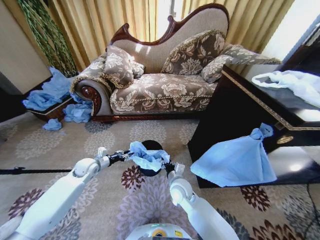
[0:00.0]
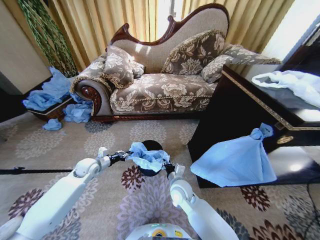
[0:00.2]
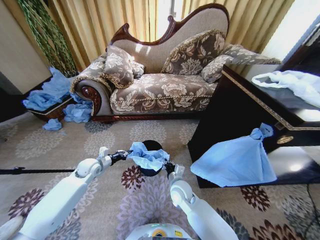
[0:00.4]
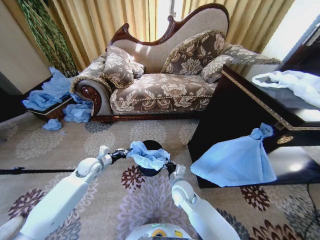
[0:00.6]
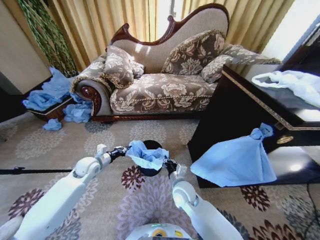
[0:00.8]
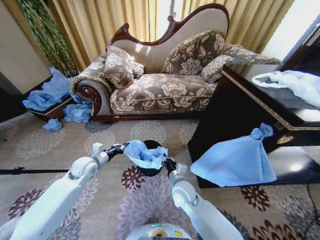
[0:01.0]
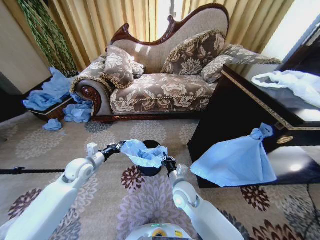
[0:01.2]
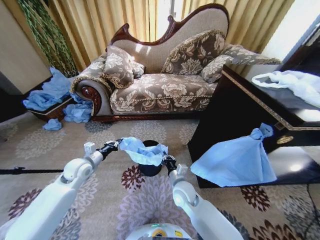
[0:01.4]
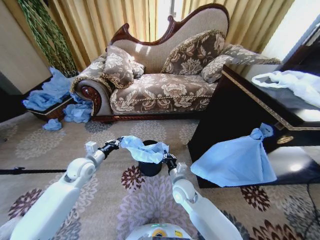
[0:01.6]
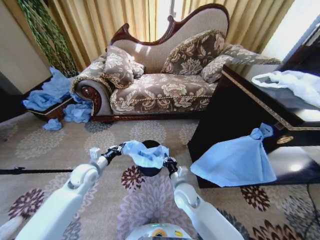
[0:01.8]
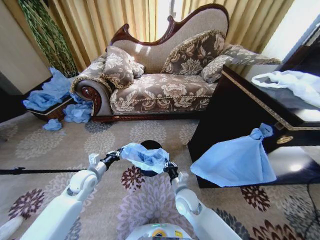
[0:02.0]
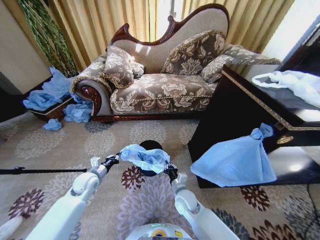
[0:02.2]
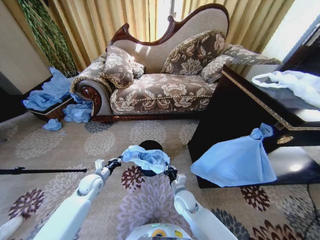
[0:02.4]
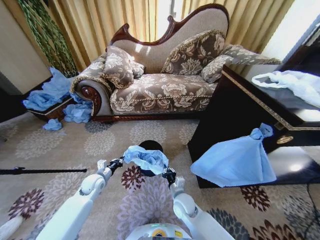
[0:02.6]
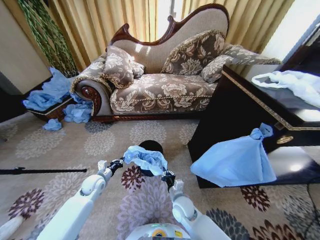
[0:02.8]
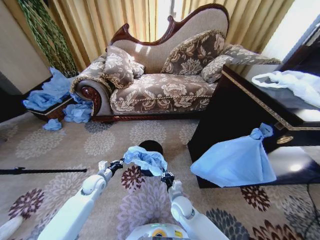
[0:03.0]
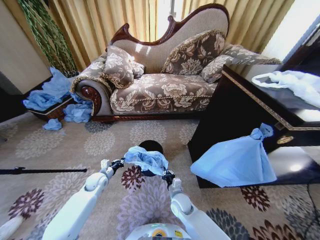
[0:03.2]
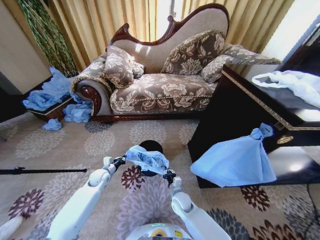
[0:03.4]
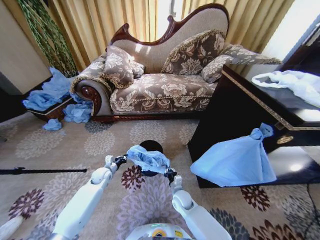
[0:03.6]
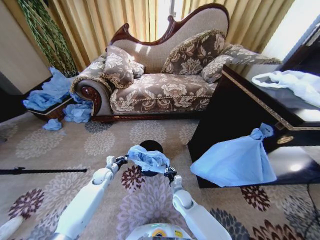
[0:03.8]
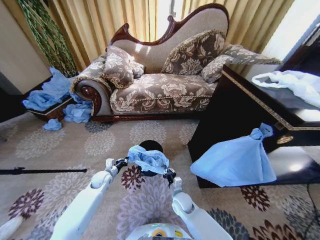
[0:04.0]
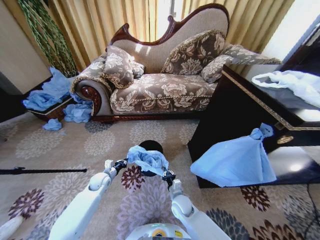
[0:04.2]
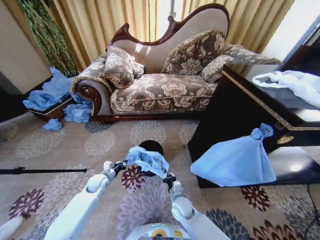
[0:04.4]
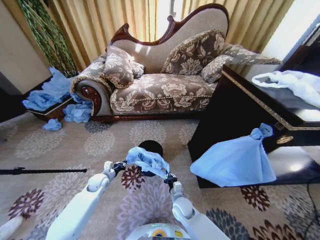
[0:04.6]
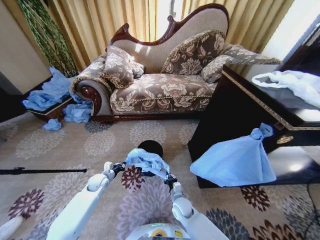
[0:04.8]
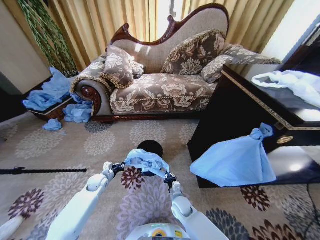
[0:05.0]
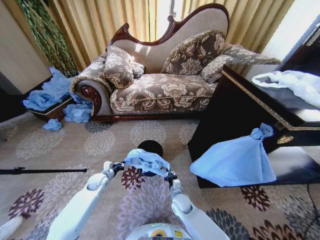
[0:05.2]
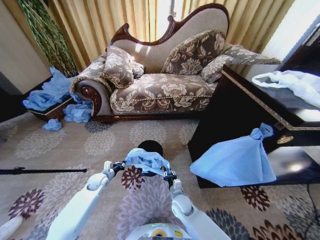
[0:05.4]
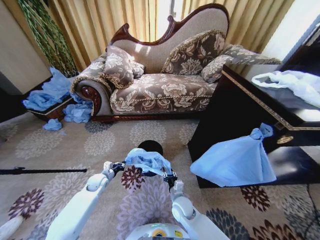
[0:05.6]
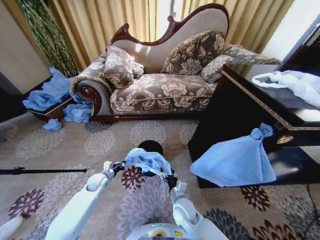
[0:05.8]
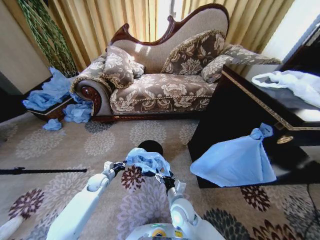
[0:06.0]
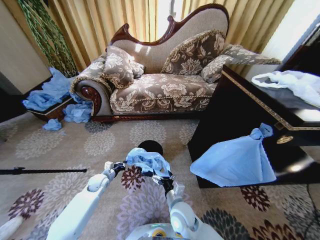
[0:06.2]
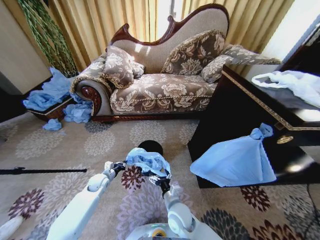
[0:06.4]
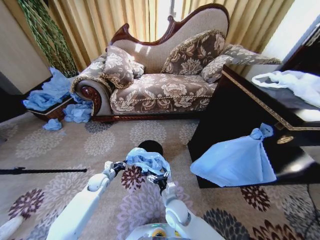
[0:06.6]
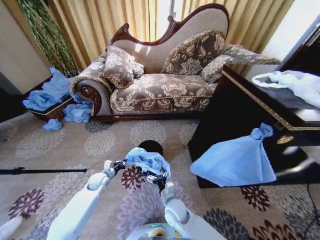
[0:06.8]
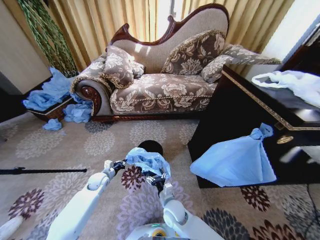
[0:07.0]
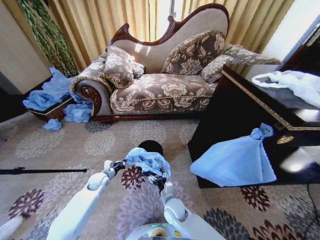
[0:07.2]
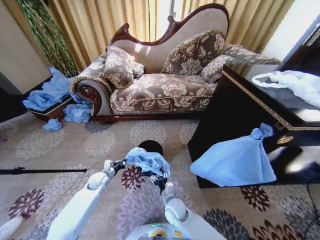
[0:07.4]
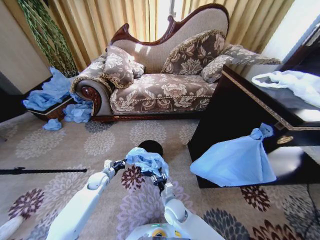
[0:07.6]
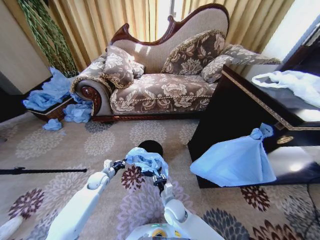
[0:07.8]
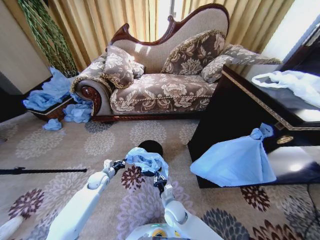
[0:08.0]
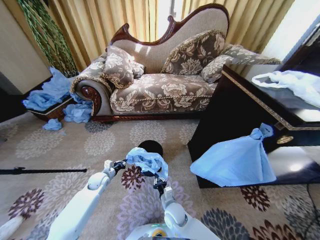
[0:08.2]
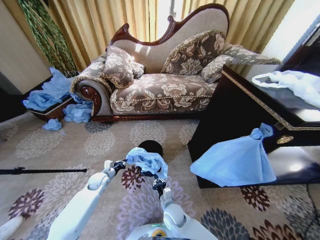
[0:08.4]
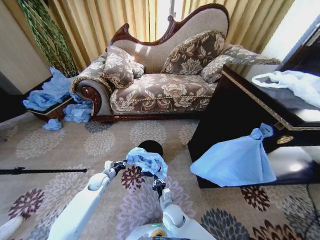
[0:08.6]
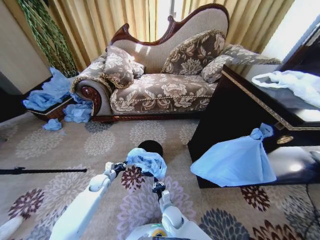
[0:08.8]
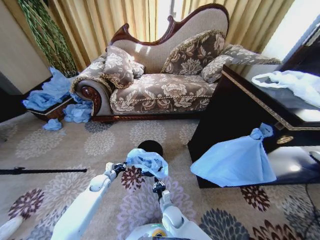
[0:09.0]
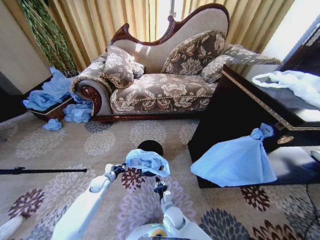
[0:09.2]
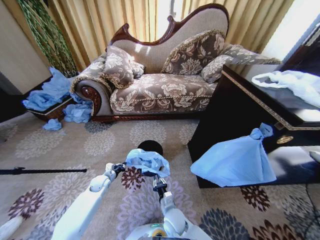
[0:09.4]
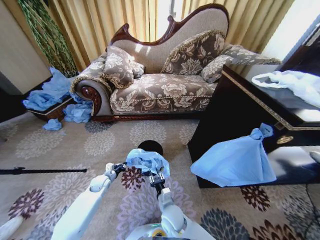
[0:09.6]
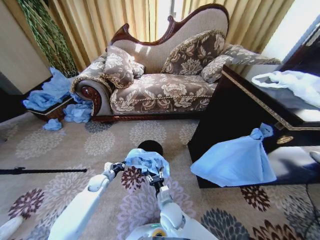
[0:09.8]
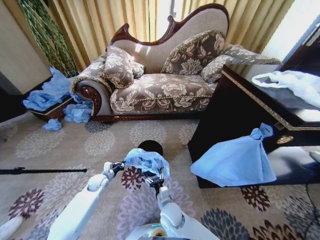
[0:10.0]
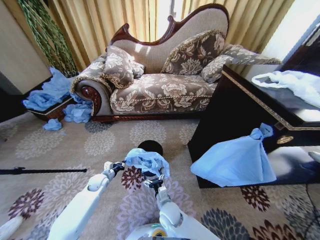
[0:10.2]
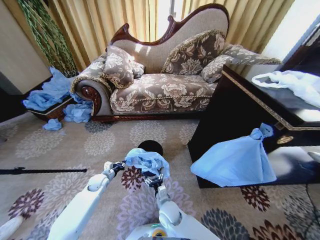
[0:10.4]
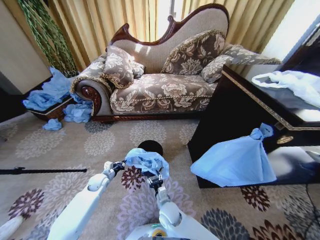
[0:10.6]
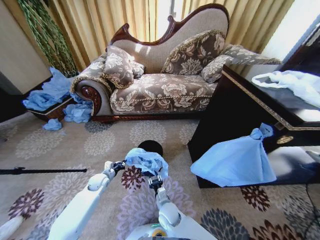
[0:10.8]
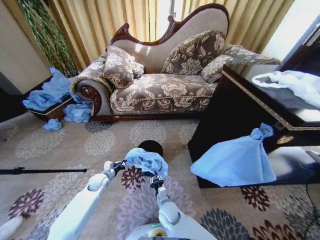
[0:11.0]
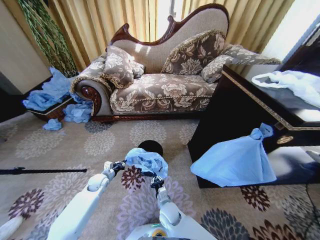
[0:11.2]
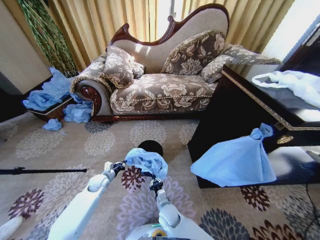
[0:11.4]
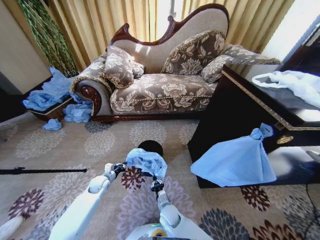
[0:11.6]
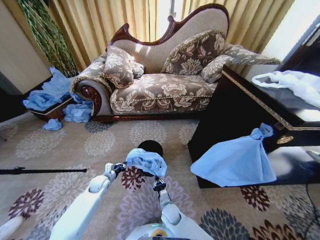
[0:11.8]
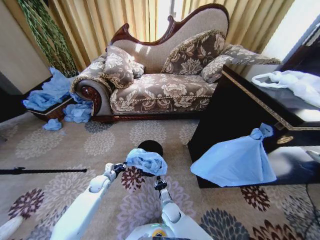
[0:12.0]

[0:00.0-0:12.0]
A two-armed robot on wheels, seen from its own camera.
Task of the whole recording: Place a garbage bag over the trash bin.
0:00.0 to 0:01.6: The right gripper closes up; the left gripper is displaced upward by roughly 5 cm, and closes.
0:01.6 to 0:03.0: Both grippers travel together downward, some 10 cm.
0:04.4 to 0:06.0: The right gripper goes roughly 10 cm upward, and opens up.
0:06.0 to 0:07.6: The right gripper moves downward, roughly 10 cm, and closes.
0:07.6 to 0:09.0: The right gripper travels downward by about 5 cm, and closes its fingers.
0:09.0 to 0:10.4: The right gripper moves upward, approximately 5 cm, and opens up.
0:10.4 to 0:12.0: The right gripper travels downward by roughly 10 cm, and closes its fingers.

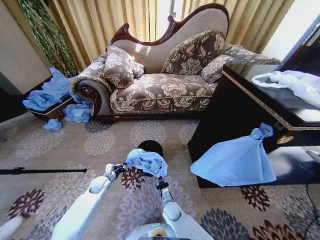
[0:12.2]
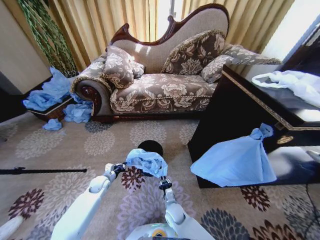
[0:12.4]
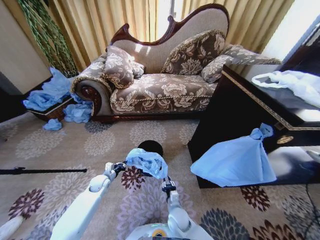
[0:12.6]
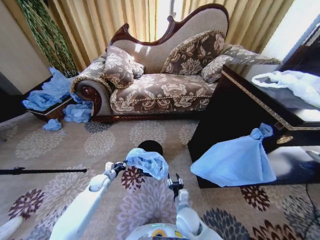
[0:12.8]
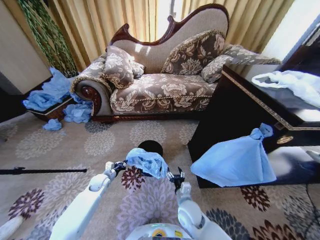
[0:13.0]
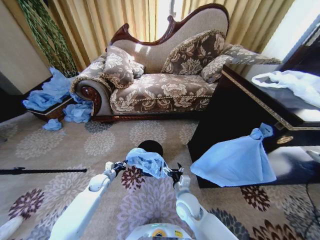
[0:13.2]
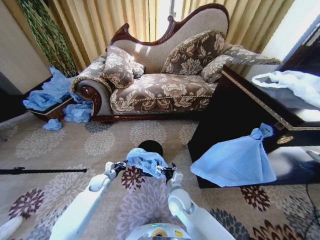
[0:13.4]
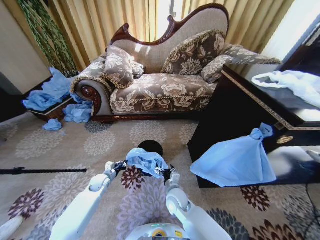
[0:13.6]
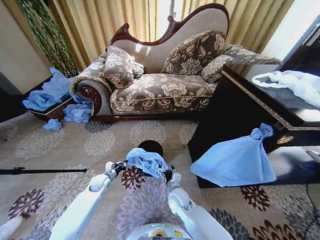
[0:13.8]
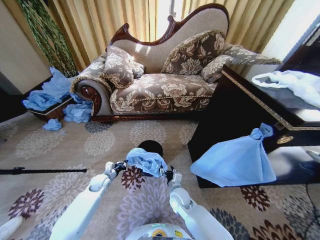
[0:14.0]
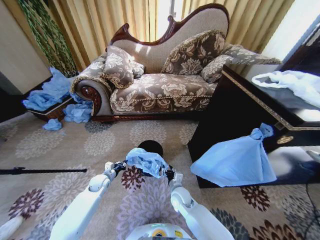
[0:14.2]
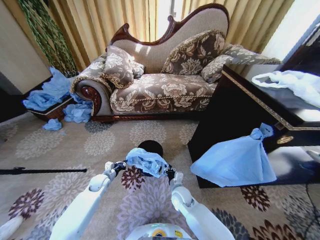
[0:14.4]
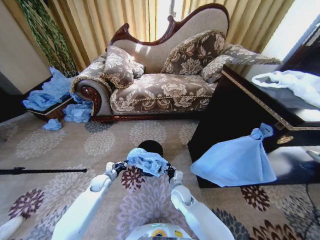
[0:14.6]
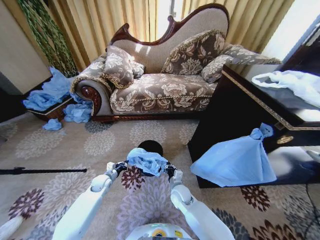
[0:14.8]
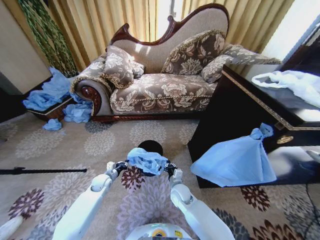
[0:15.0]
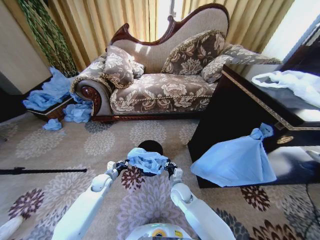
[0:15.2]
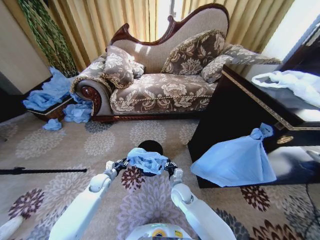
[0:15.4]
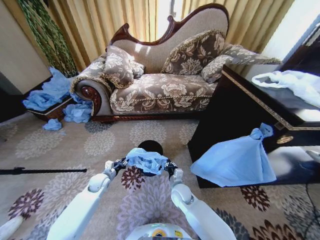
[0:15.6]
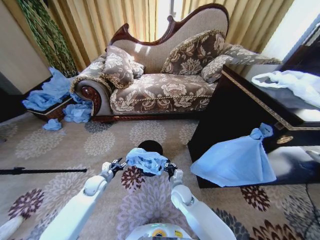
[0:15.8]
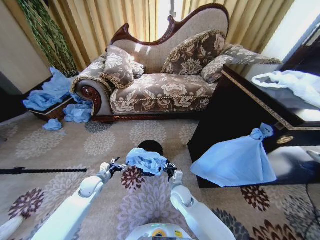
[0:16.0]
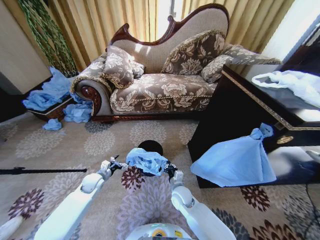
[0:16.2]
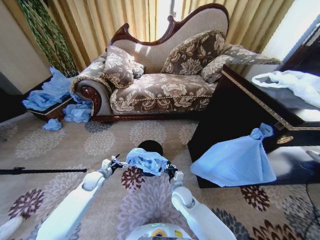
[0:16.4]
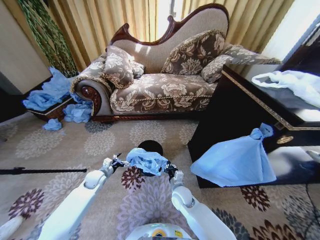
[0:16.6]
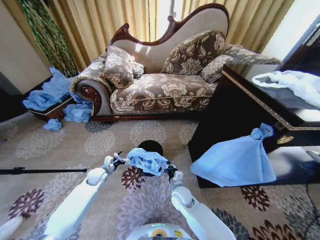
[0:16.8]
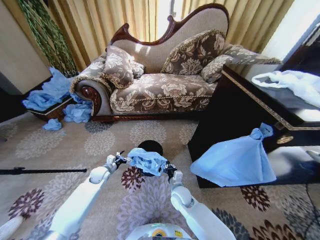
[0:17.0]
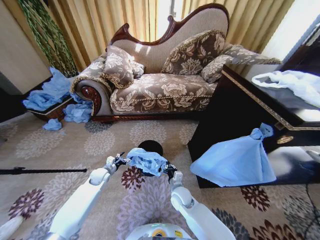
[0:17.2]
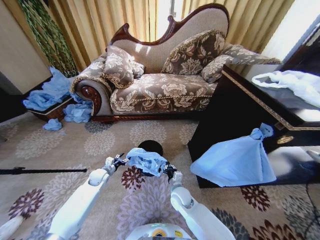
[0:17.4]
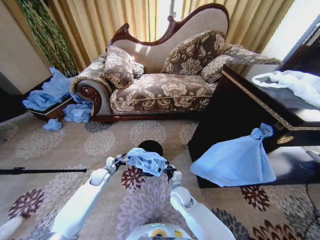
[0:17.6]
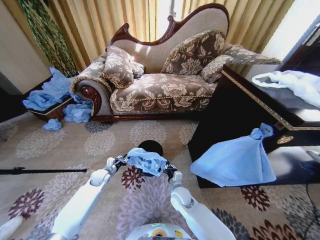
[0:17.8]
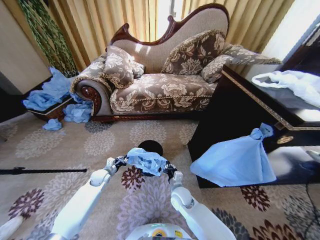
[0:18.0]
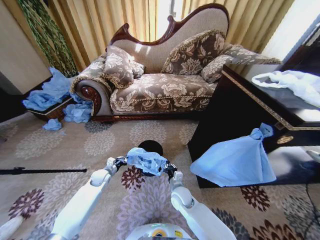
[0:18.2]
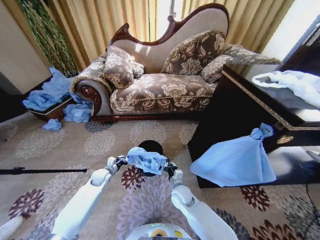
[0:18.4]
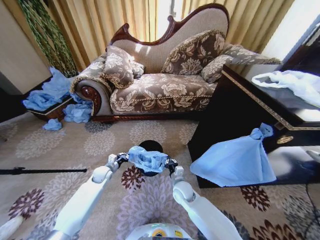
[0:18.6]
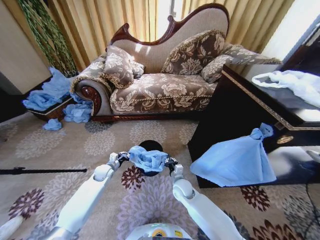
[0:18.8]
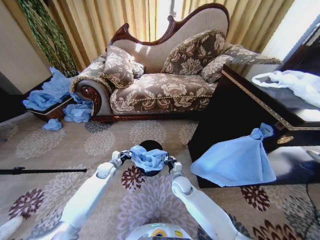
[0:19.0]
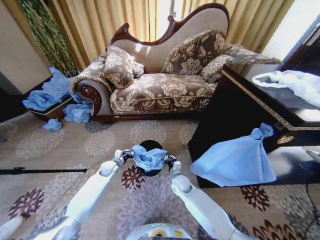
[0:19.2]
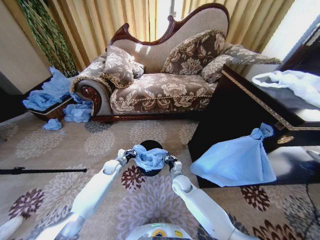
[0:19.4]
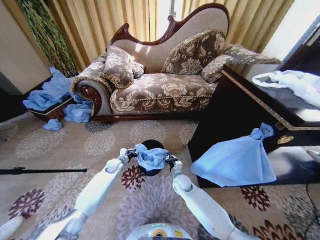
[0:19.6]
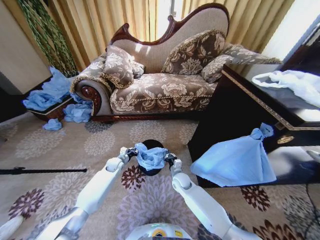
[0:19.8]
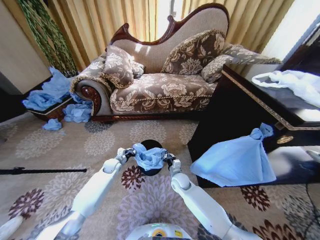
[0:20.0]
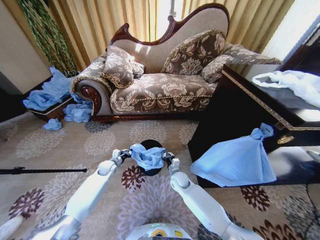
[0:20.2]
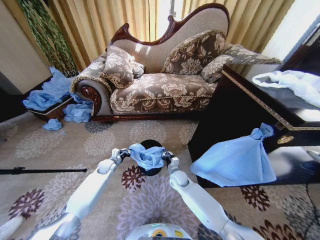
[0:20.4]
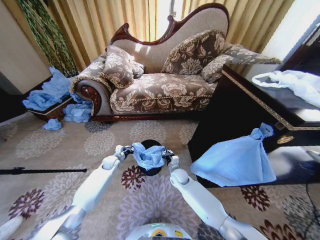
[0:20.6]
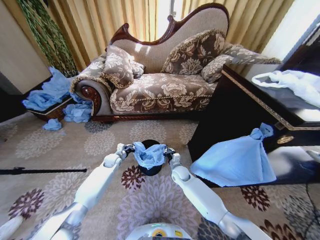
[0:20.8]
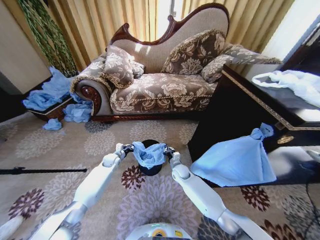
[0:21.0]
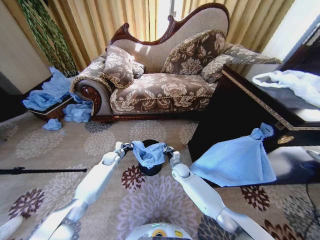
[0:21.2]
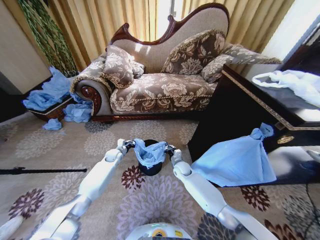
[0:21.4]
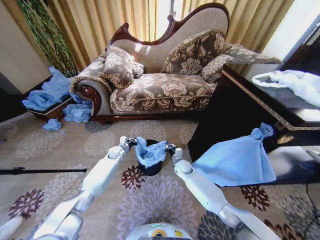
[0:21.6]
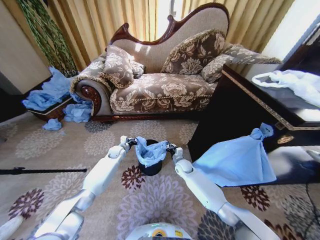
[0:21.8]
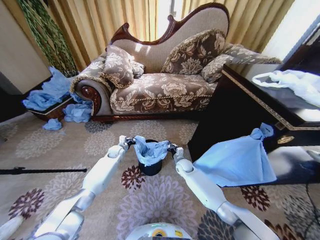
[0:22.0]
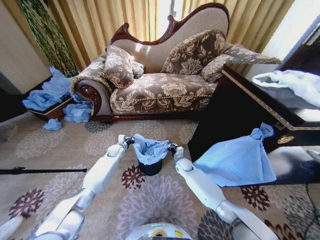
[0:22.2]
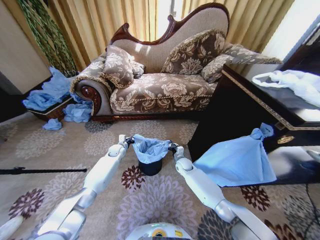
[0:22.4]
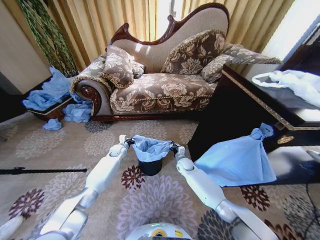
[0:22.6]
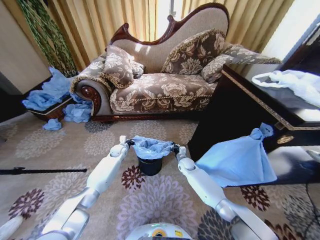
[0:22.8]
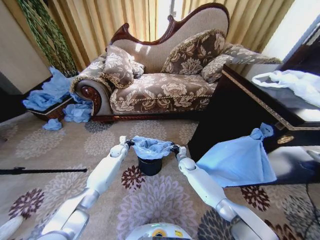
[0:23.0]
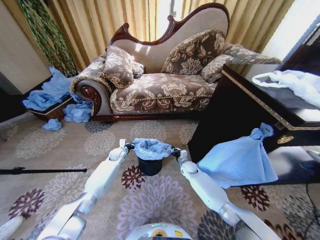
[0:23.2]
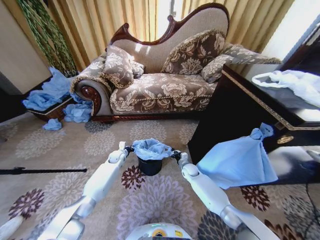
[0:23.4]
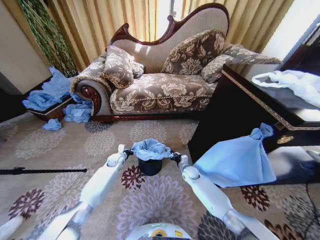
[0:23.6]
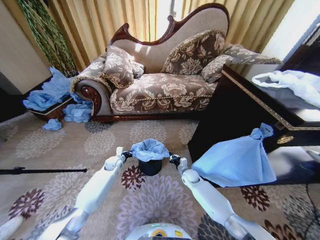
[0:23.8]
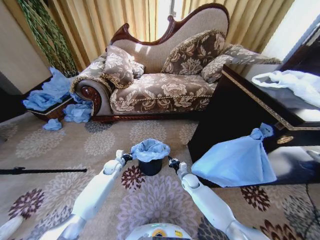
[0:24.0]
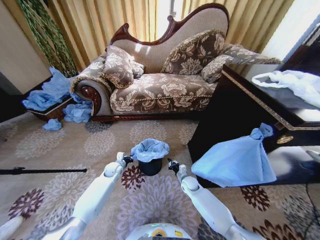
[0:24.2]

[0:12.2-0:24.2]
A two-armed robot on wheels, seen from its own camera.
Task of the whole recording: Place a garbage bag over the trash bin.
0:12.2 to 0:13.8: The right gripper moves upward, approximately 15 cm, and opens its fingers.
0:13.8 to 0:15.2: The right gripper closes up.
0:15.2 to 0:16.6: The left gripper opens its fingers.
0:16.6 to 0:18.2: The left gripper closes its fingers.
0:18.2 to 0:19.8: The right gripper travels forward by approximately 10 cm. Meanwhile the left gripper heads forward and to the right, covering about 10 cm.
0:19.8 to 0:21.2: The right gripper shifts some 5 cm forward.
0:21.2 to 0:22.6: The left gripper moves about 5 cm. Meanwhile the right gripper changes place by about 5 cm.
0:22.6 to 0:24.2: The right gripper heads backward and downward, covering approximately 10 cm. The left gripper goes some 10 cm backward.
